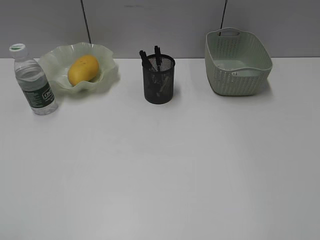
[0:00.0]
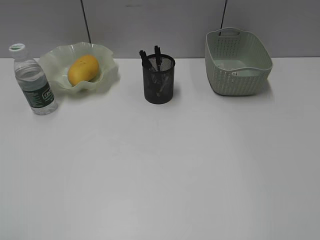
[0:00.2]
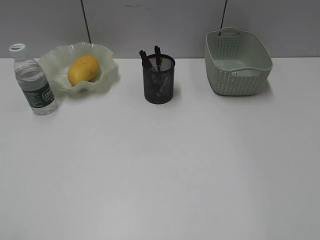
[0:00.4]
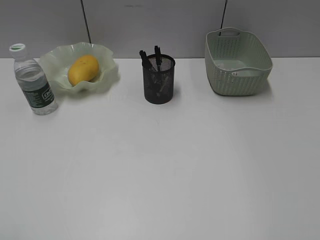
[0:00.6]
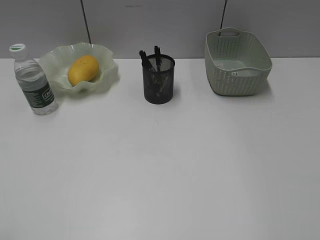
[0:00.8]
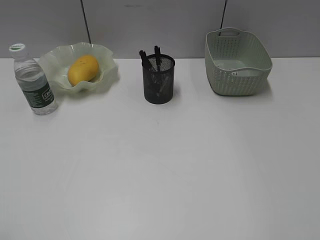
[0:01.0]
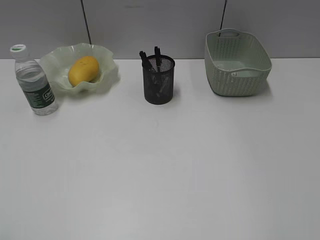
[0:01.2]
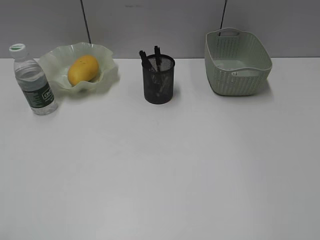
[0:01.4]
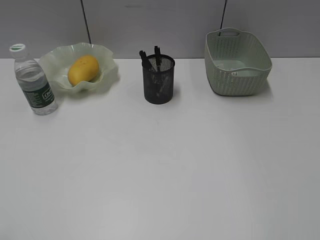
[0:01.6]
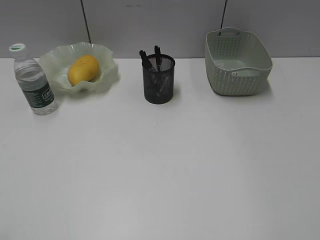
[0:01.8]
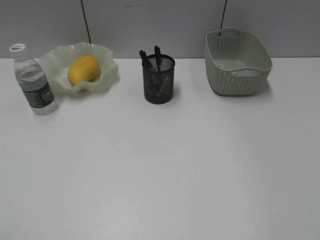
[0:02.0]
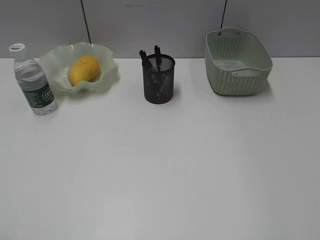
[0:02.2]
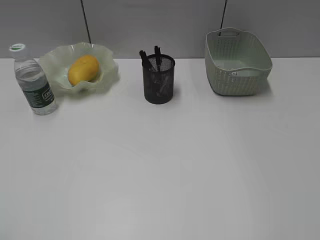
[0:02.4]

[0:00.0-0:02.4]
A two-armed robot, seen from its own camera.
1.2 to 2.4 s: Neither gripper changes place.

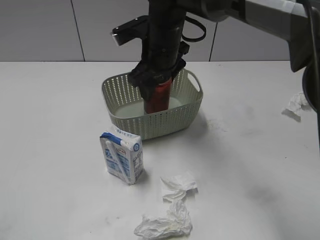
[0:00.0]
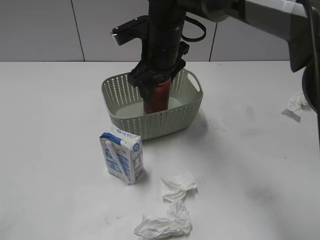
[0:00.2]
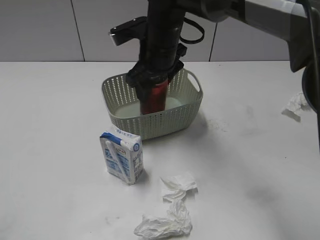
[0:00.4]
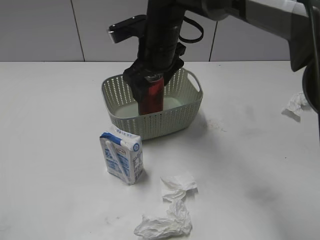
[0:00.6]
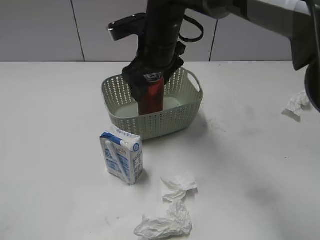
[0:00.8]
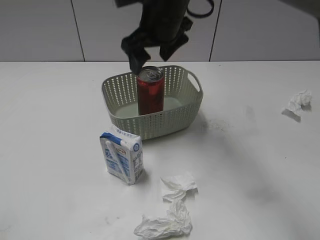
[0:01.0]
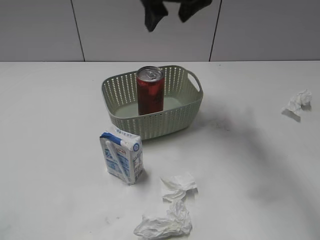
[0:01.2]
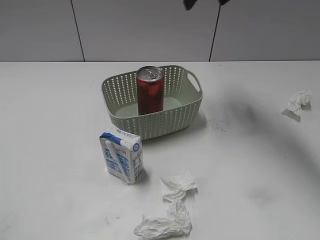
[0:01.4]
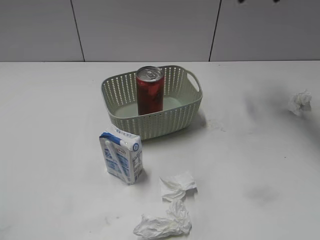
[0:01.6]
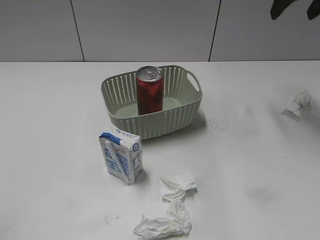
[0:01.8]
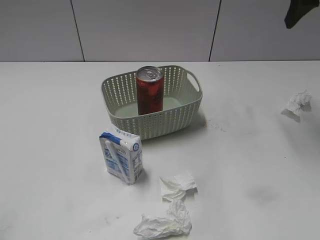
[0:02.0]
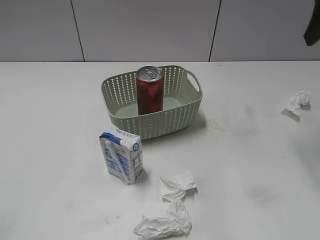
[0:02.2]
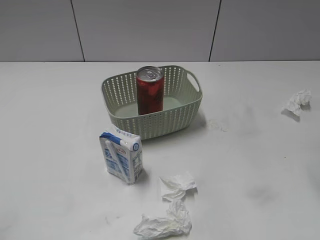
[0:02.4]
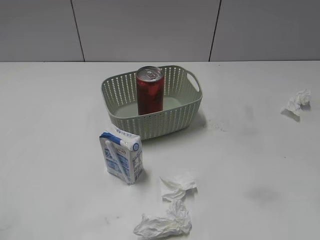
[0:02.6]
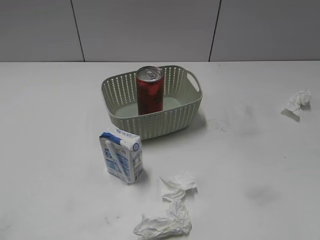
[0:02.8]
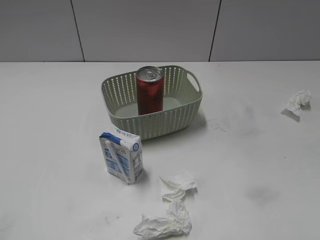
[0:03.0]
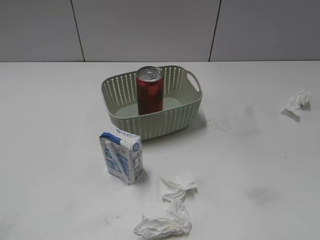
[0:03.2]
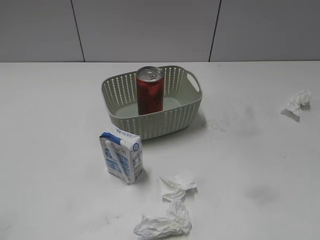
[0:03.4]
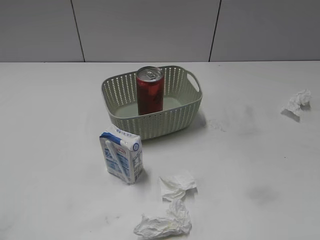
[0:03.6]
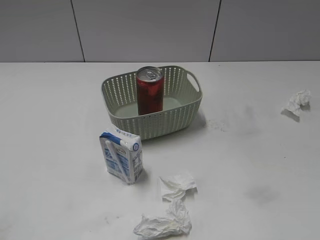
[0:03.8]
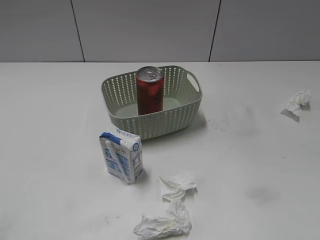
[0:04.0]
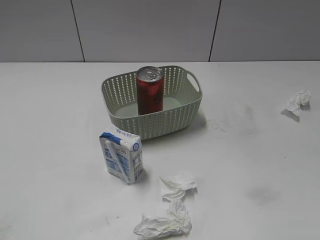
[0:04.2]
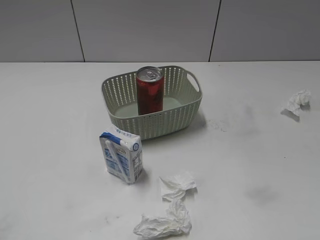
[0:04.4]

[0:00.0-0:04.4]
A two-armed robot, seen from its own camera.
0.0 to 1.4 s: The right gripper shifts roughly 15 cm upward and to the right.
1.4 to 3.0 s: The right gripper is displaced backward and to the right by roughly 35 cm.

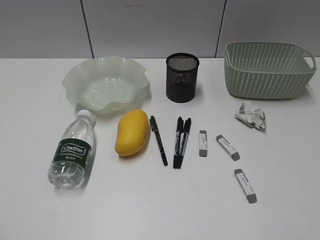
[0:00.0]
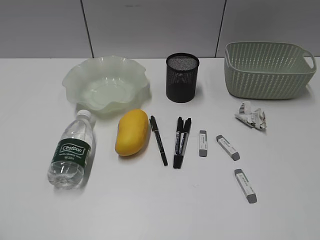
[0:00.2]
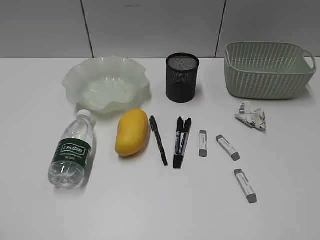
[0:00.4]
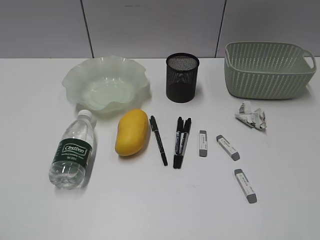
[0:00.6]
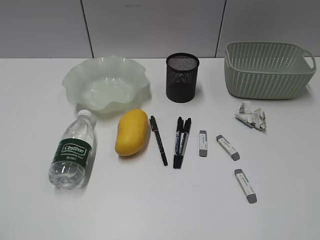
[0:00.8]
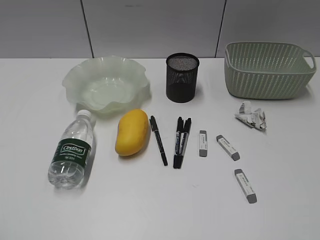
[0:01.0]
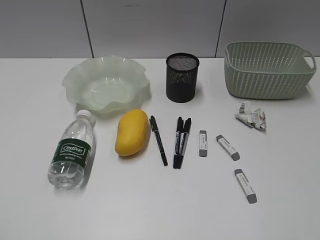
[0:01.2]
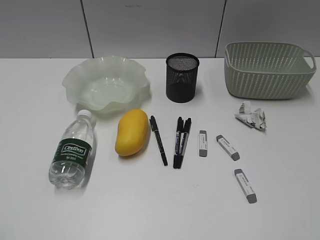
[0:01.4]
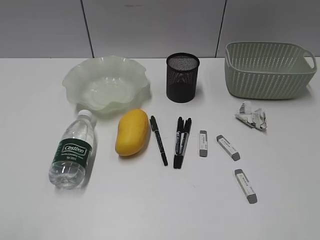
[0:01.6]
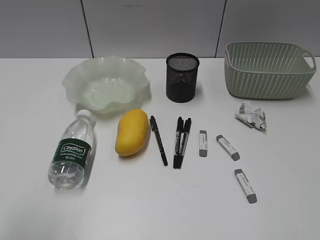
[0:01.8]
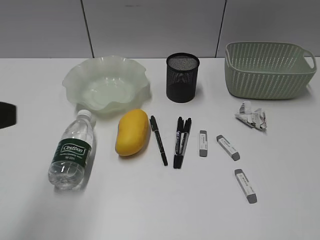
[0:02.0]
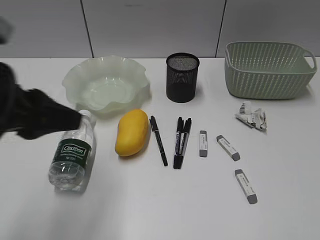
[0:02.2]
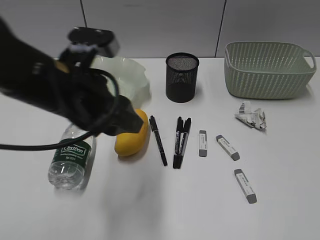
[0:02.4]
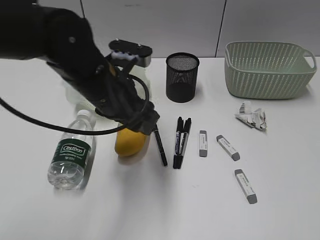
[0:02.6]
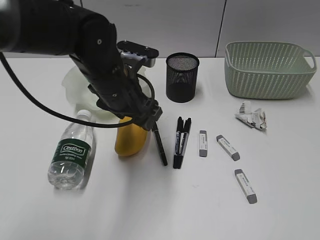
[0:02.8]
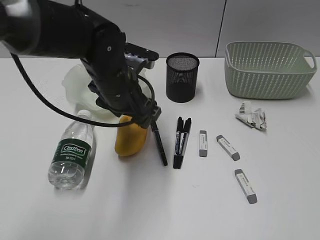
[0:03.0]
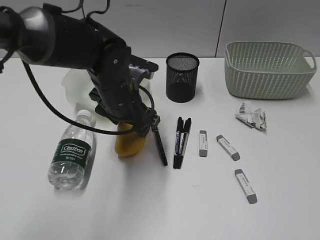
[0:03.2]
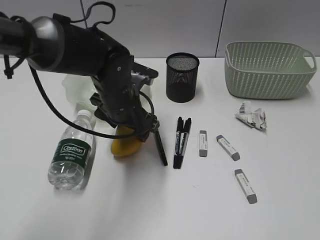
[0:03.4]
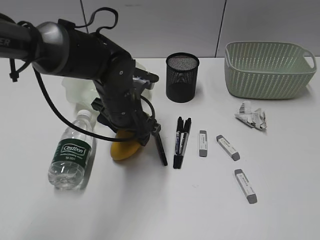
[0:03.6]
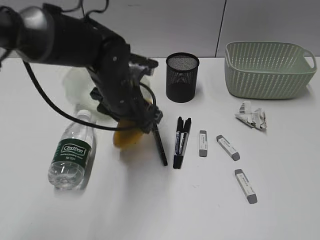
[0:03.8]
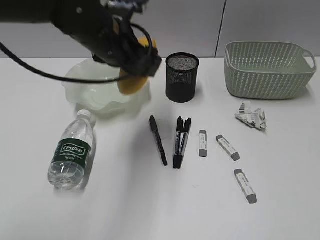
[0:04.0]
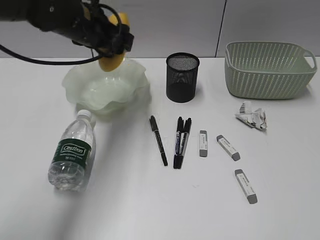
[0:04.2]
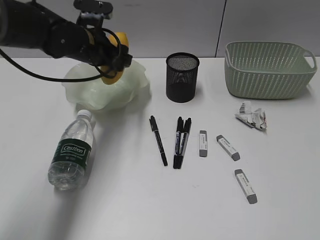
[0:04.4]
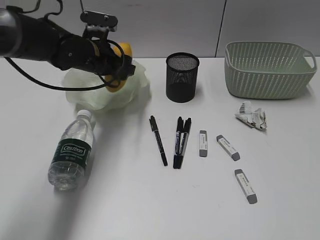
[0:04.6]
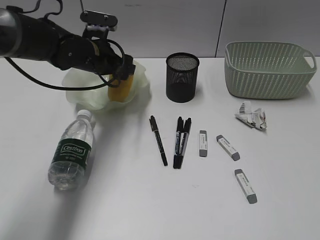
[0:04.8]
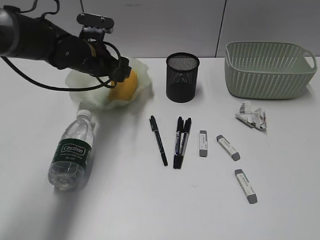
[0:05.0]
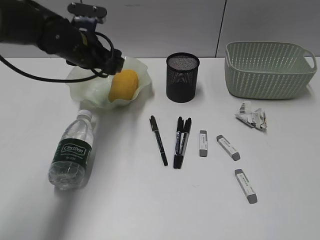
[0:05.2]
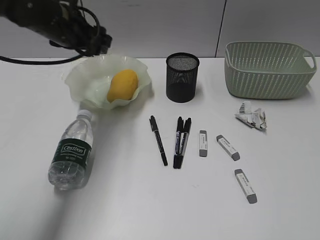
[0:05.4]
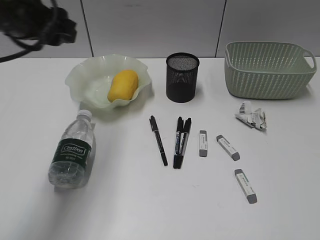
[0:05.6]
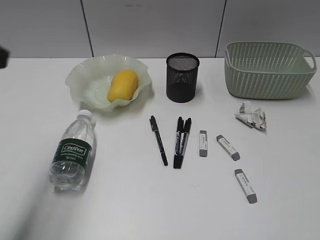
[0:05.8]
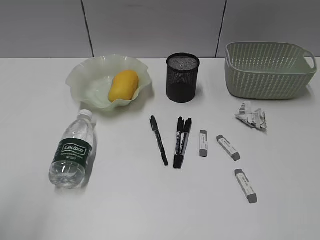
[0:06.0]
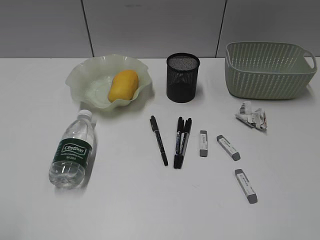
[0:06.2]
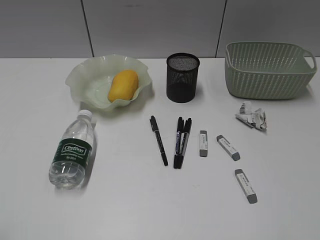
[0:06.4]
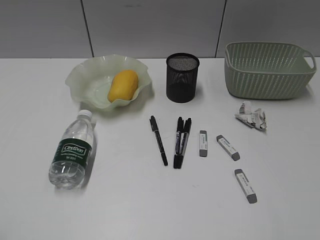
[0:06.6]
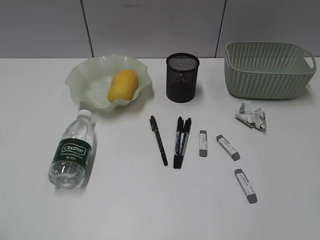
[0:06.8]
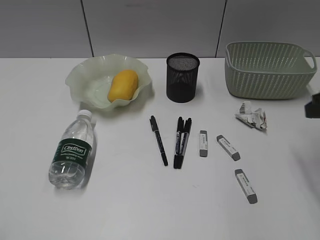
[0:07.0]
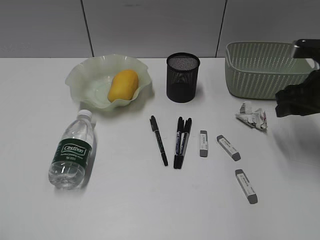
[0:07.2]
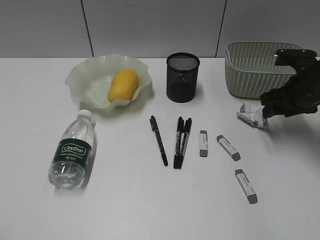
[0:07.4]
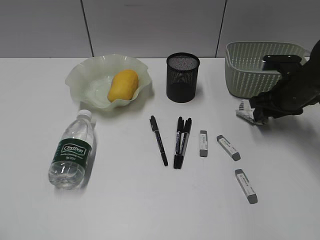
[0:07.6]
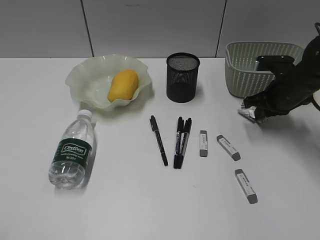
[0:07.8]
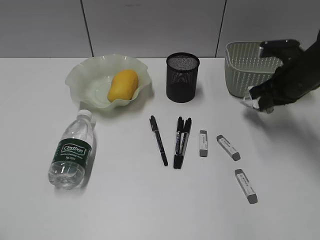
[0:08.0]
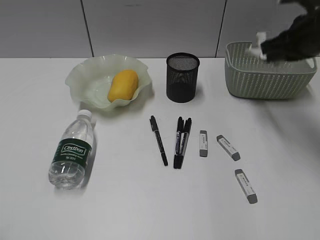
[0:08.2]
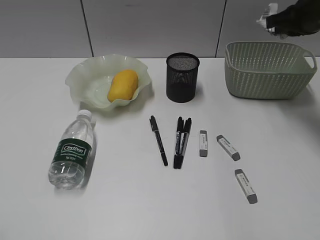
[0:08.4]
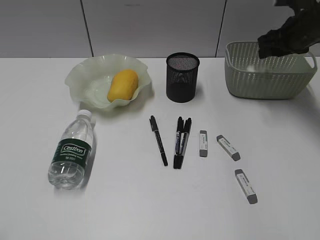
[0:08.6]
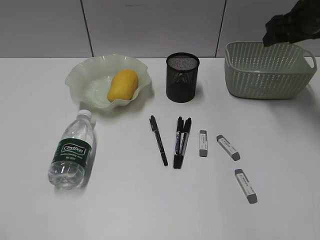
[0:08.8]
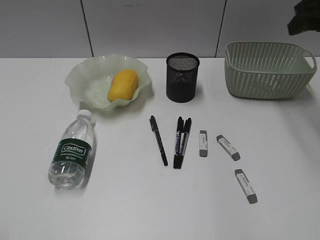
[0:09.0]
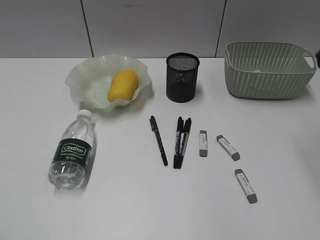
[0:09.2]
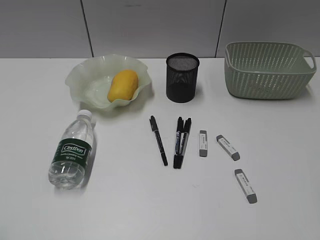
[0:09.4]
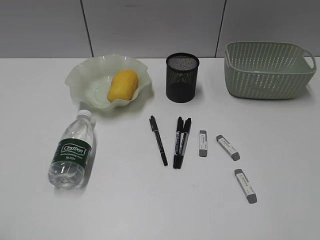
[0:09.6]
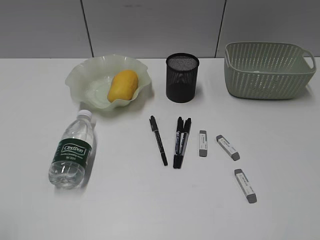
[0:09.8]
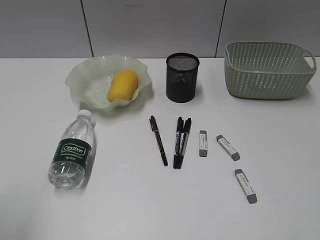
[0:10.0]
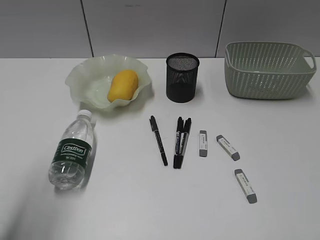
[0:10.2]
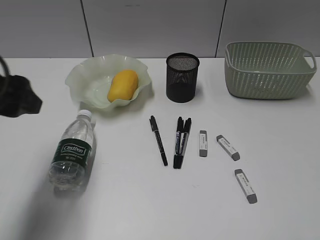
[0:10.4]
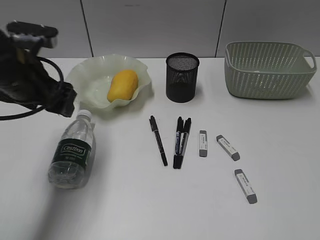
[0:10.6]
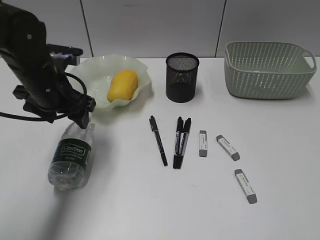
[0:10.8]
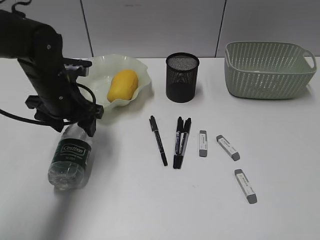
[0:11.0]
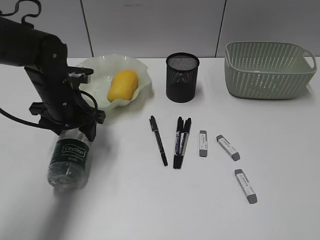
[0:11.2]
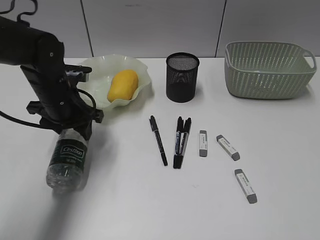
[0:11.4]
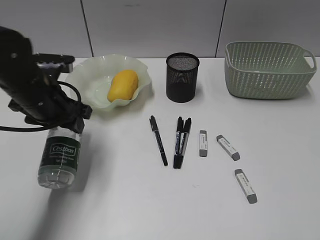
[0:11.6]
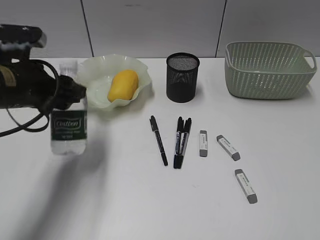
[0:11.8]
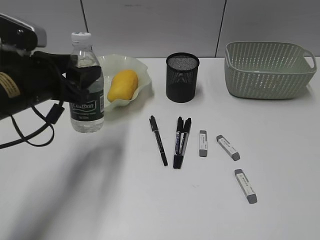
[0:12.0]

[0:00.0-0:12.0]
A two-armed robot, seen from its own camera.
Step, 1.4 to 3.6 s: Grasp the mango with left gripper.
Step, 3.8 to 5.2 s: Place the mango in the plate with left gripper.
Step, 5.4 to 7.8 s: Grasp the waste paper with right gripper.
Step, 8.0 to 8.6 s: Place the waste paper in the basket with right gripper.
Step, 8.8 to 11.2 s: Grasp the bottle with left gripper.
1.6 to 3.0 s: The left gripper is displaced forward and to the right by approximately 40 cm, and opens its fingers.
3.0 to 4.4 s: The left gripper goes up and down, some 10 cm each way, reversing 2 times.
4.4 to 6.0 s: The left gripper moves backward and to the left, roughly 40 cm.
6.0 to 7.6 s: The right gripper moves forward and downward, approximately 40 cm, and opens up.
7.6 to 9.0 s: The right gripper moves up and down over about 20 cm, changing direction 2 times, and closes and opens again.
9.0 to 10.4 s: The right gripper moves backward, roughly 35 cm. Meanwhile the left gripper goes approximately 25 cm forward and to the right.
10.4 to 12.0 s: The left gripper shifts roughly 5 cm downward.

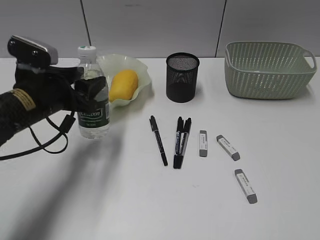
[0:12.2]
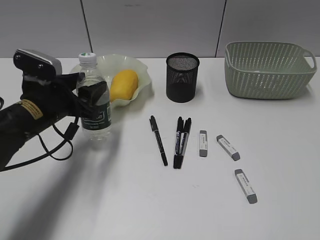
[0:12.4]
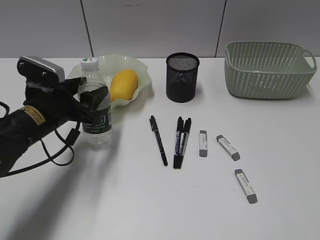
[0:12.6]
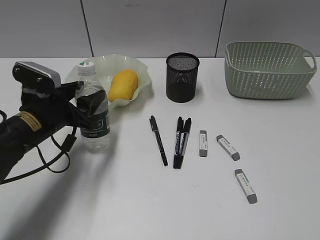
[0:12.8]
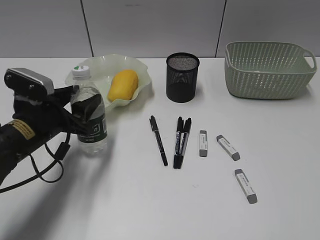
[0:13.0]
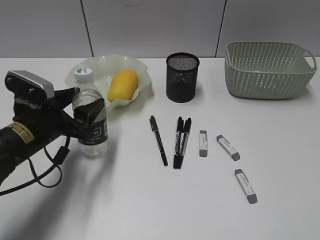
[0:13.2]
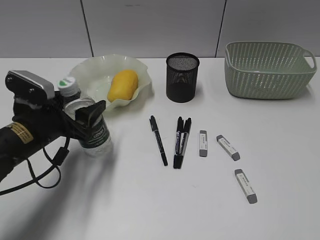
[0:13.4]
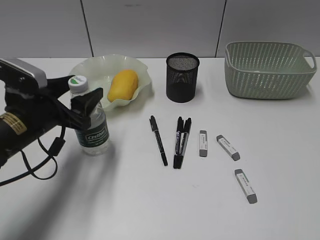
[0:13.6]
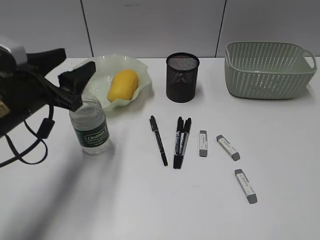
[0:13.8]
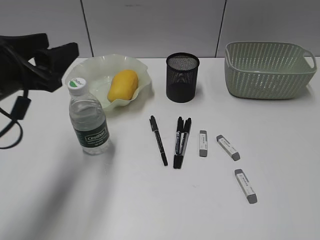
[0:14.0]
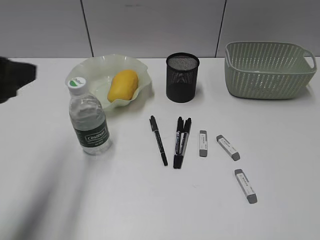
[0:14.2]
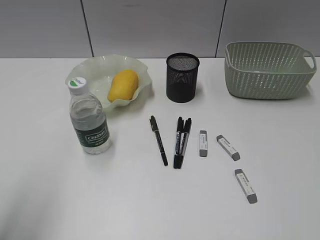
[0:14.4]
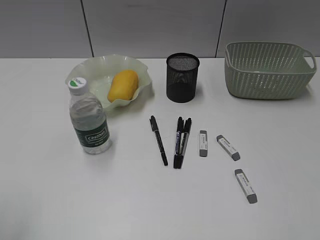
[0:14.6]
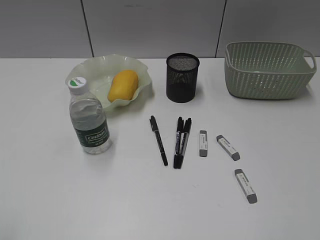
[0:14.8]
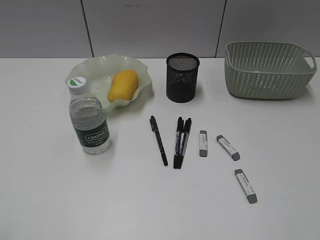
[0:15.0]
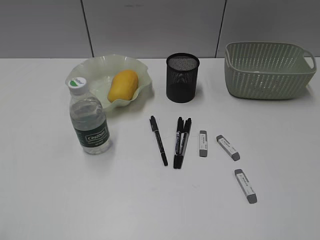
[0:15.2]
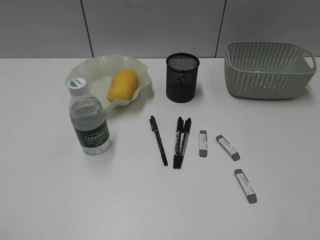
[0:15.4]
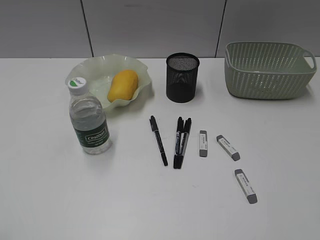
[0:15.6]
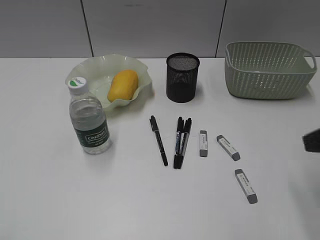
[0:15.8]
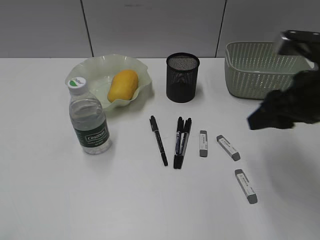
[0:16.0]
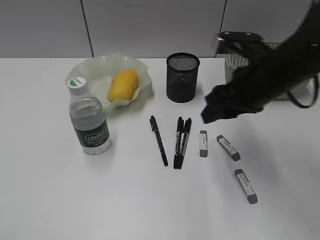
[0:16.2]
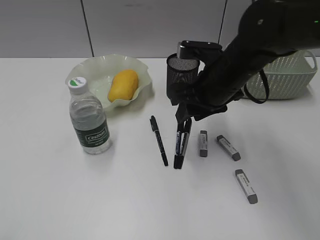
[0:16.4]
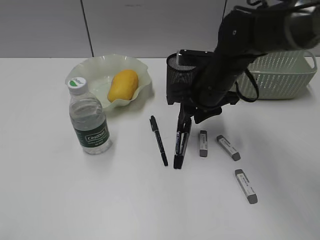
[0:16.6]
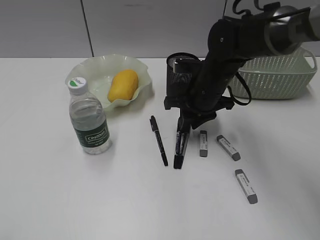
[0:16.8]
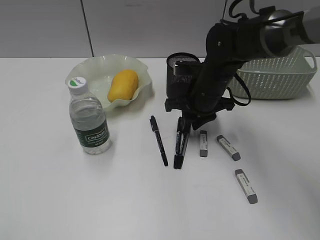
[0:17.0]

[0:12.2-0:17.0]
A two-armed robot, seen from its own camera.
Step, 12.2 to 13.6 s: Stand the bottle with left gripper.
12.2 to 13.8 s: The grippers stay close to where they were, moving slightly.
13.8 to 15.4 s: The left gripper moves backward and to the left, about 30 cm.
15.4 to 17.0 s: The right gripper shifts approximately 40 cm forward, to the left and downward.
